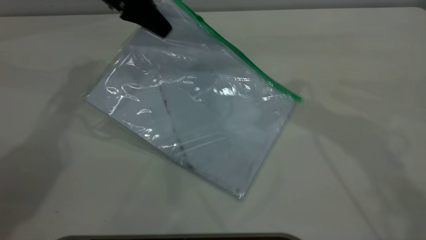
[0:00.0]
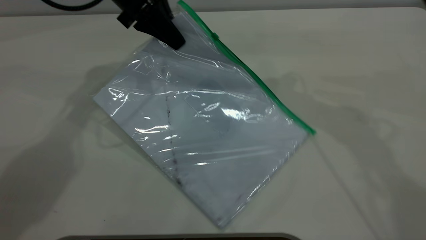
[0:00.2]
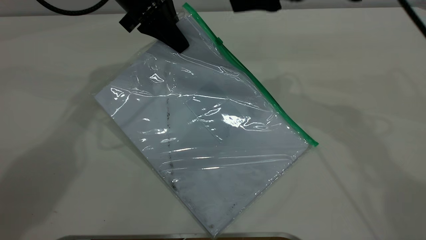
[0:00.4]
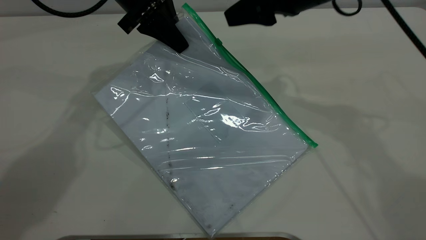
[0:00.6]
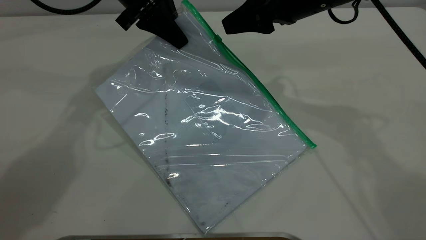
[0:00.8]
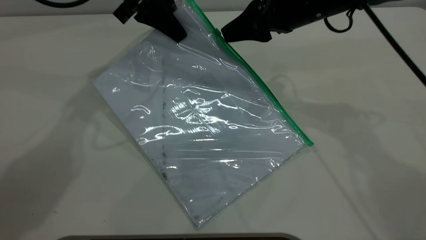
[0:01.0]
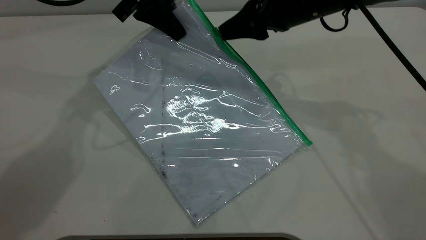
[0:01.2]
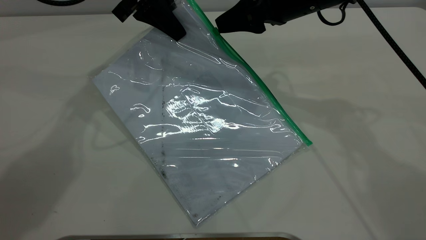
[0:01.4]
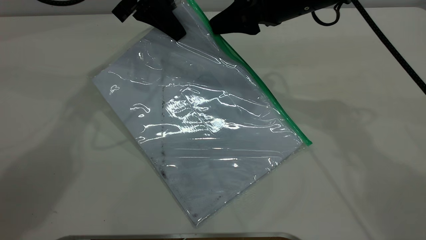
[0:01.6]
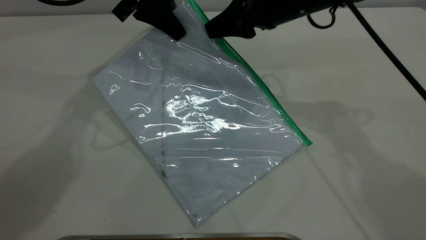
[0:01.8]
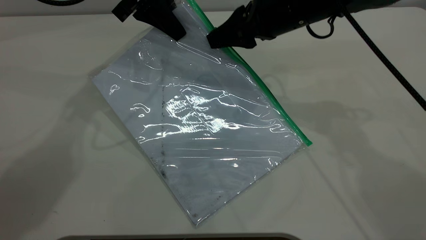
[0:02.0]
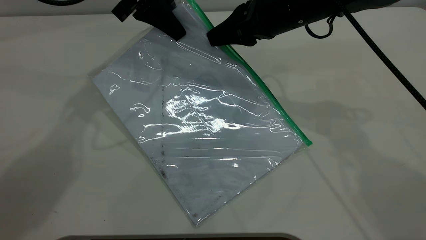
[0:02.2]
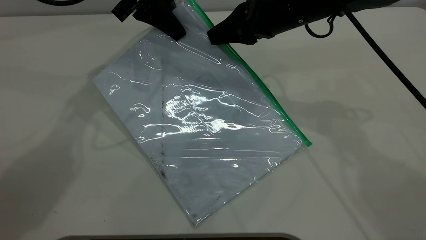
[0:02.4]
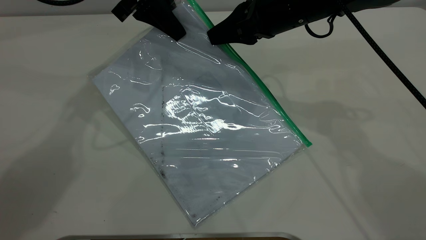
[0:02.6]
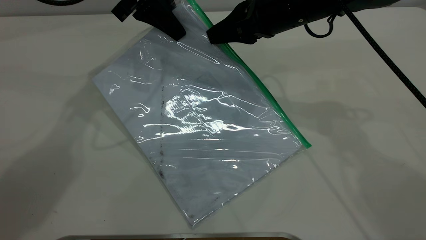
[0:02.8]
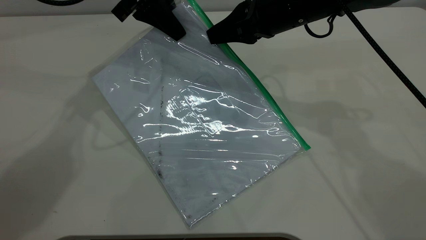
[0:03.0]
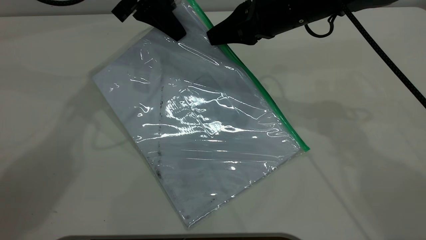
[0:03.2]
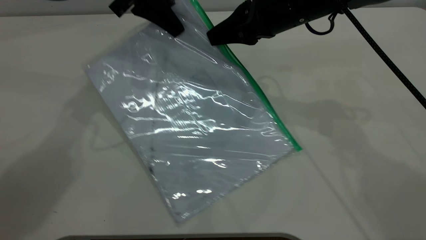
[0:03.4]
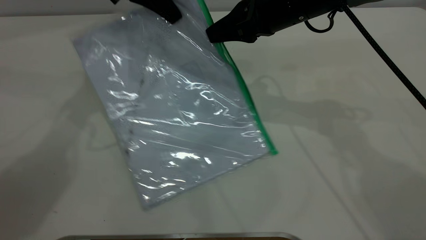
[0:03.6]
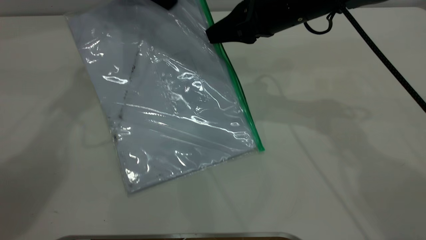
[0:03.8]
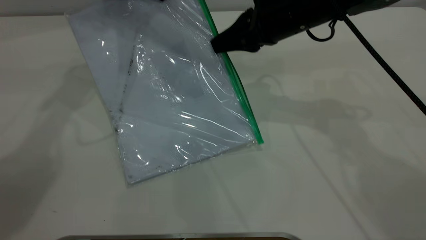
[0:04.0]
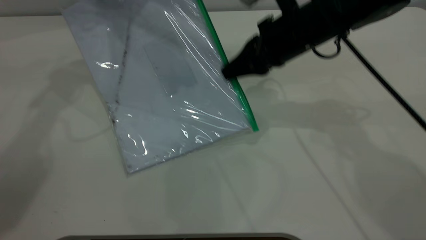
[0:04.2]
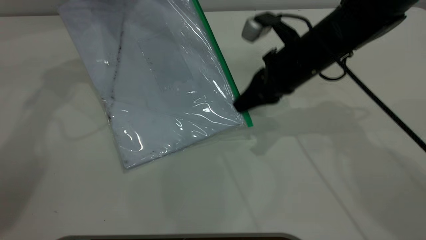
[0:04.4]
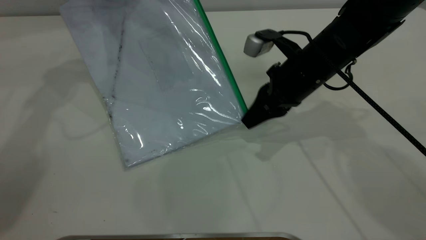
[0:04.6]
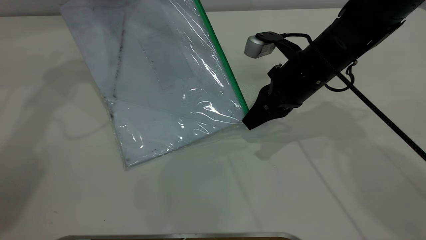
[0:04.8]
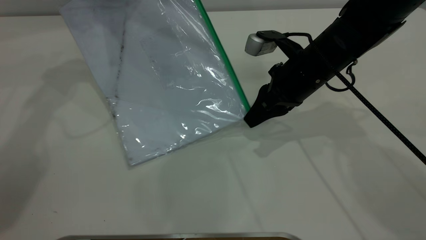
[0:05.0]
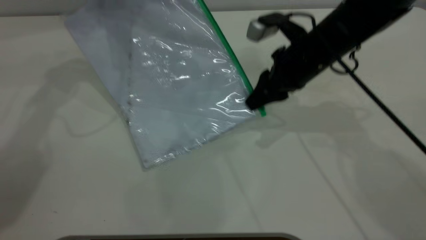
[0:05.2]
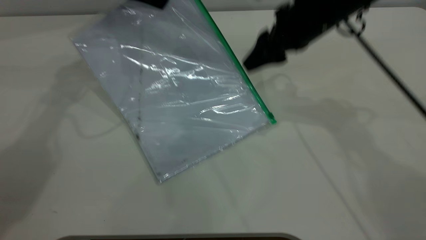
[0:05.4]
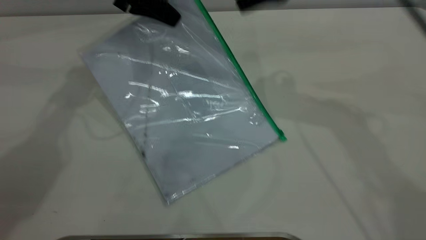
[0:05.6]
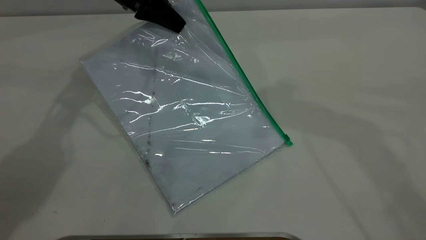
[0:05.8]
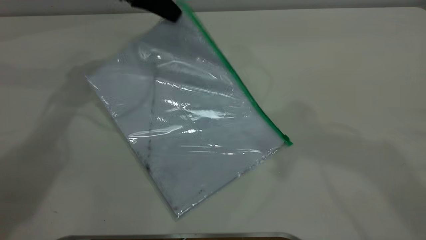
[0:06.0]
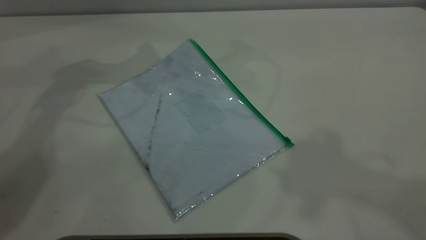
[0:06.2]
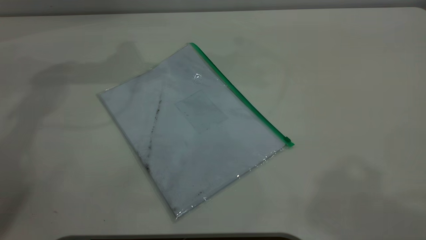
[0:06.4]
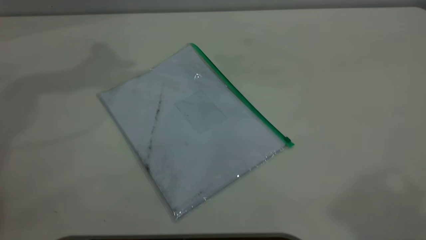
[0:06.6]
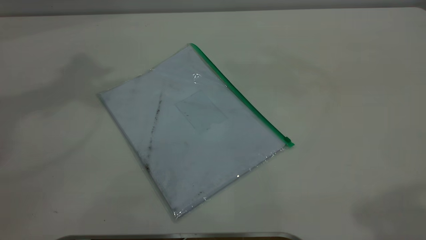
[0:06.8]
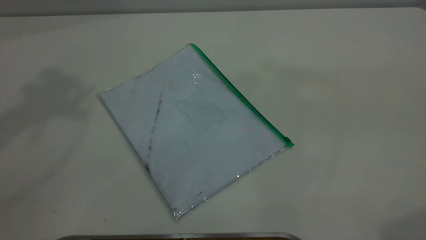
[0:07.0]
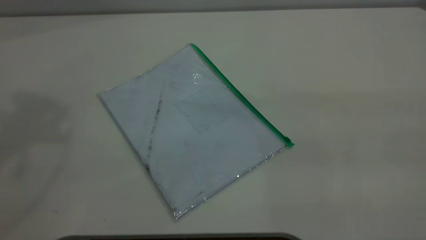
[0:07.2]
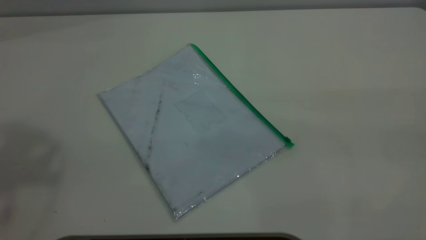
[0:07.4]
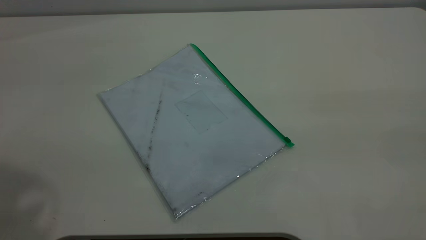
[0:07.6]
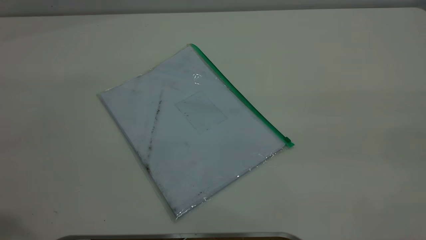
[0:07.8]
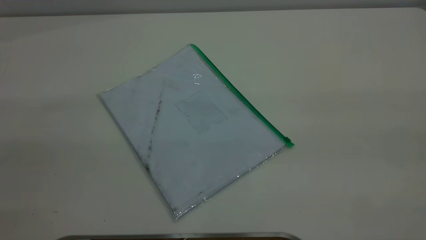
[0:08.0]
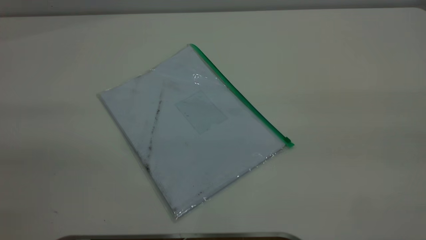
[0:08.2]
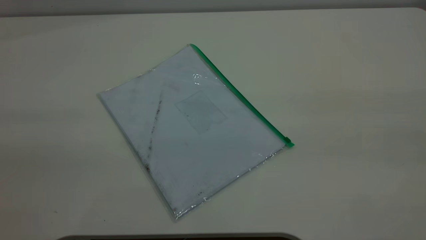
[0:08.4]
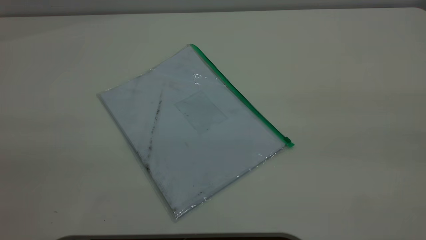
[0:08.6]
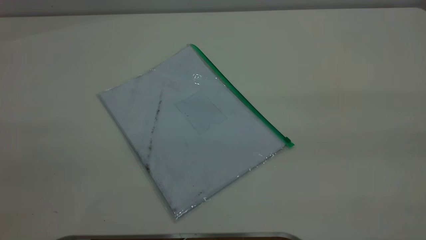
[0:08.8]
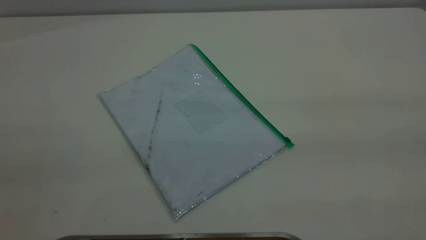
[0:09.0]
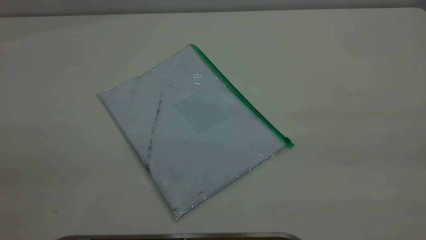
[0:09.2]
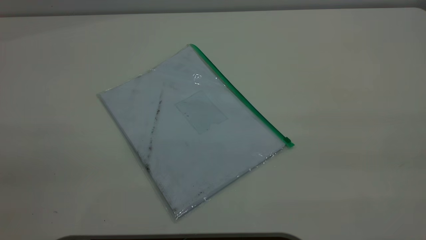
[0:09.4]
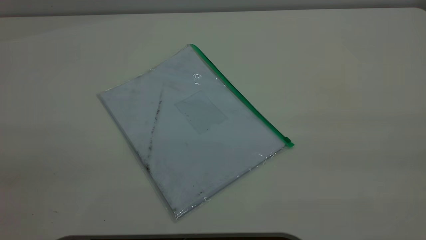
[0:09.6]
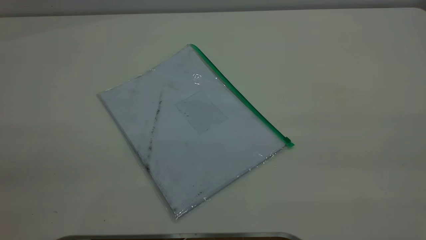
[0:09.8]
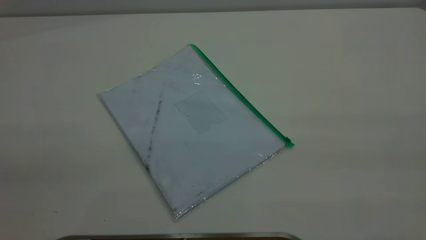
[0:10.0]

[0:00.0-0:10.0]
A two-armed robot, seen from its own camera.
Step, 0:00.0 to 0:05.4: Pulling up the zipper on the transparent plastic bag with the right gripper to close it.
Step, 0:05.6 to 0:06.0: Place the transparent plastic bag.
0:00.0 to 0:01.4: The right gripper heads downward, covering roughly 10 cm.
0:01.4 to 0:02.8: The right gripper closes.
0:02.8 to 0:04.2: The left gripper heads to the left, covering some 5 cm. Meanwhile the right gripper goes some 5 cm downward.
0:04.2 to 0:05.8: The right gripper is displaced upward by some 25 cm, and opens up, while the left gripper goes roughly 5 cm downward.
0:05.8 to 0:07.2: The right gripper moves backward and to the right, some 30 cm, while the left gripper is displaced upward and backward by some 40 cm, and opens its fingers.
